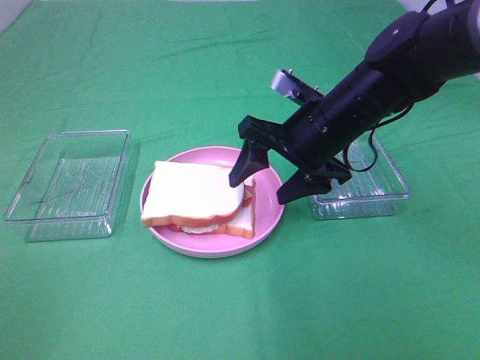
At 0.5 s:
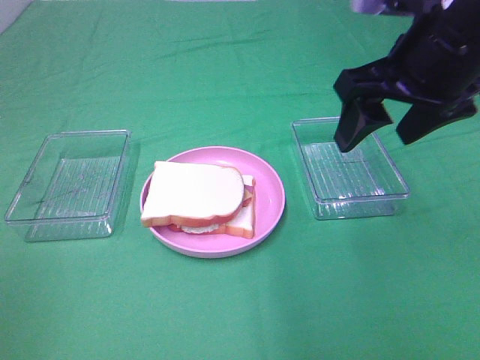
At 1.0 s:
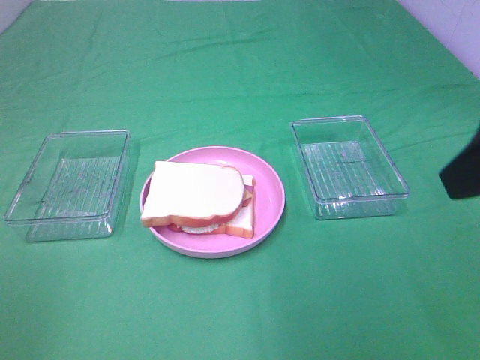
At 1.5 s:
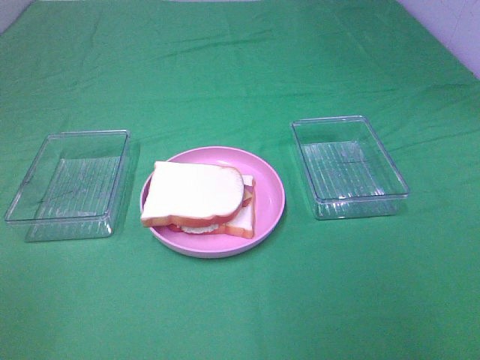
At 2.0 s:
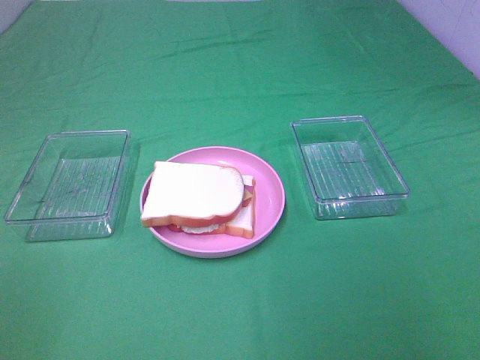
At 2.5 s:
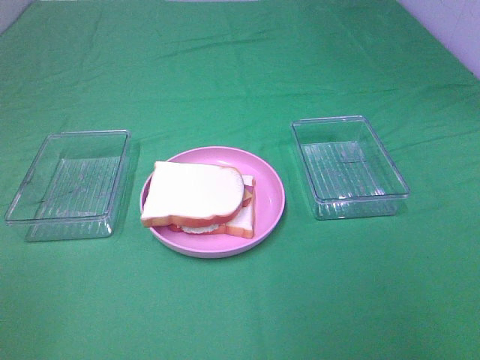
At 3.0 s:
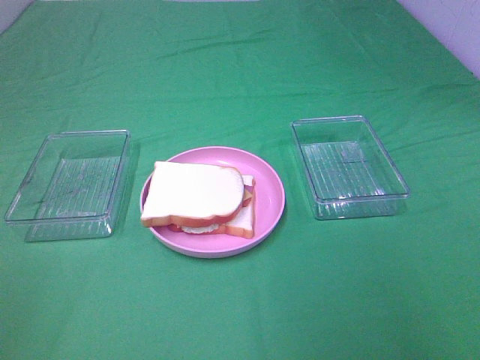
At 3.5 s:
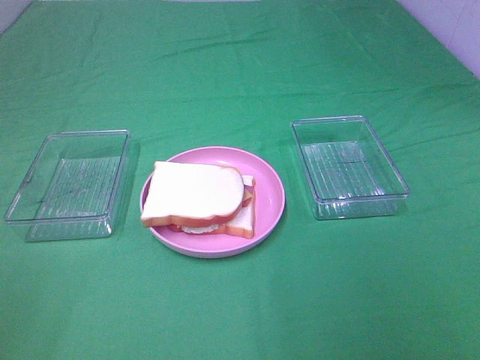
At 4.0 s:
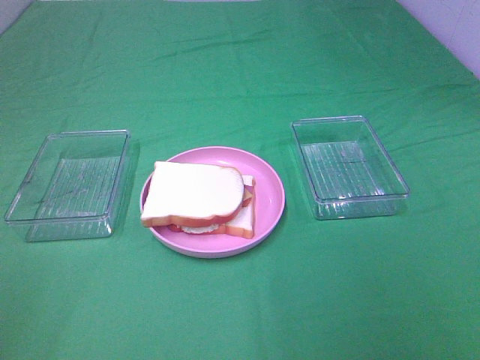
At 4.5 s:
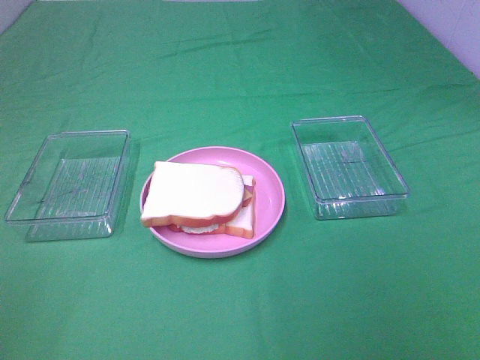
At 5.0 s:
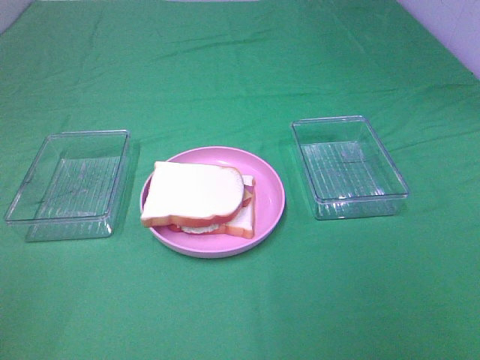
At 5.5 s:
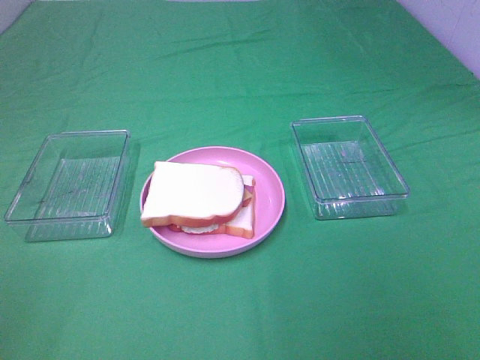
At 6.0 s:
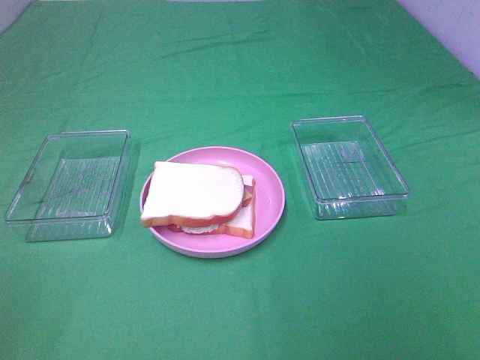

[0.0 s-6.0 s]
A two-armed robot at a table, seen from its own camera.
Task of the whole recording: Make sandwiches.
0.0 to 2.0 s: The right gripper travels backward and to the right by roughly 35 cm.
4.0 to 6.0 s: Both grippers stay about where they are.

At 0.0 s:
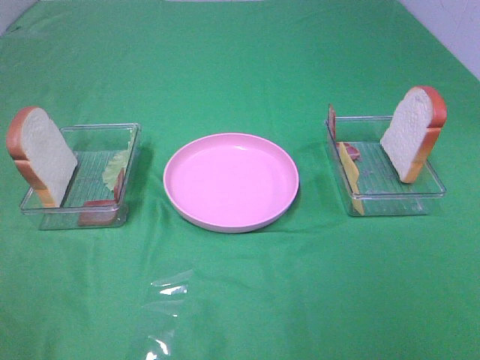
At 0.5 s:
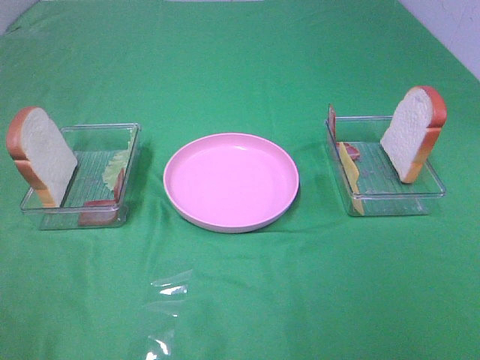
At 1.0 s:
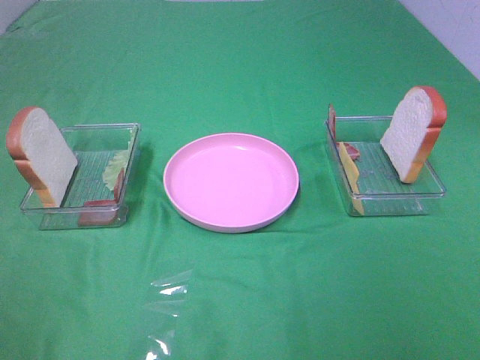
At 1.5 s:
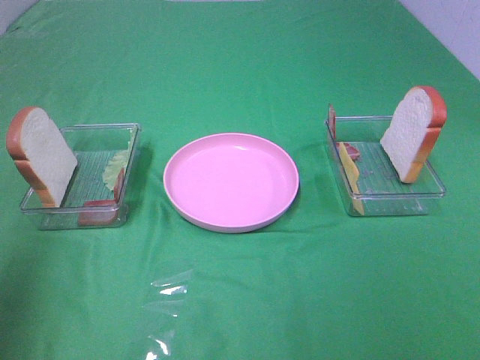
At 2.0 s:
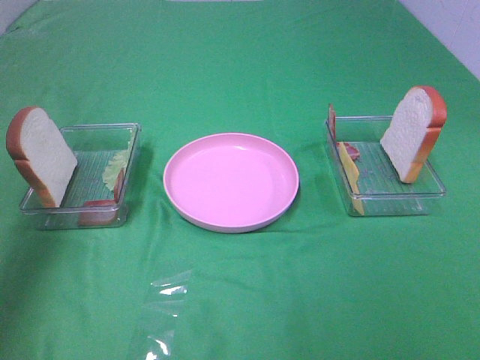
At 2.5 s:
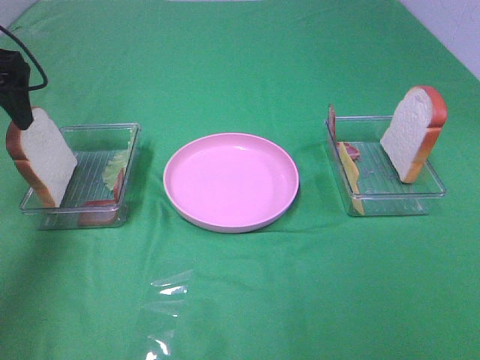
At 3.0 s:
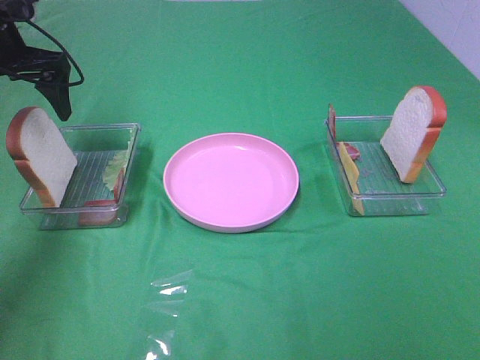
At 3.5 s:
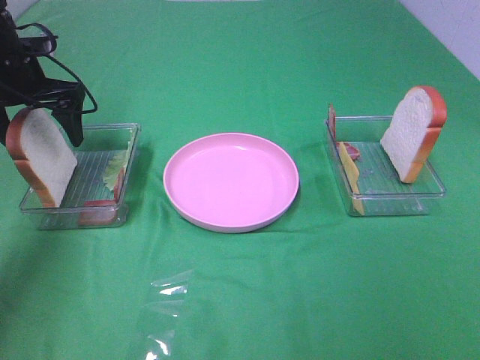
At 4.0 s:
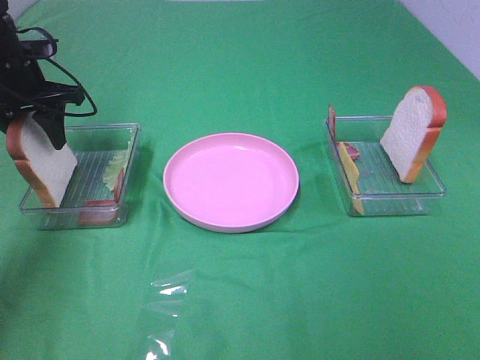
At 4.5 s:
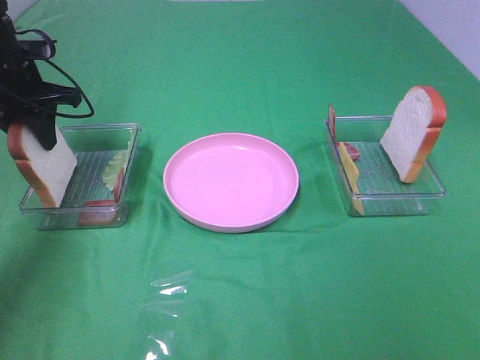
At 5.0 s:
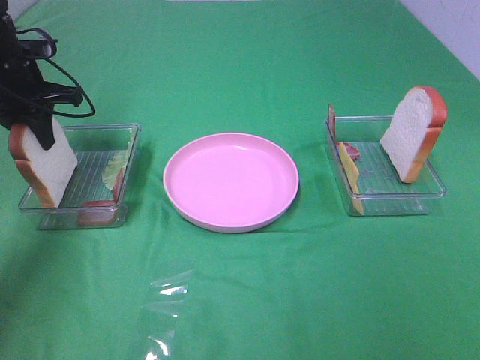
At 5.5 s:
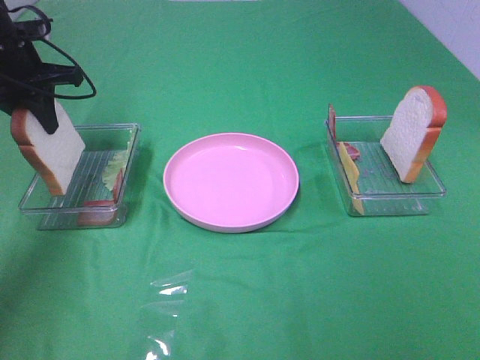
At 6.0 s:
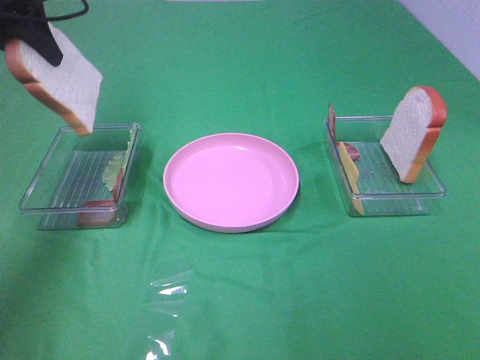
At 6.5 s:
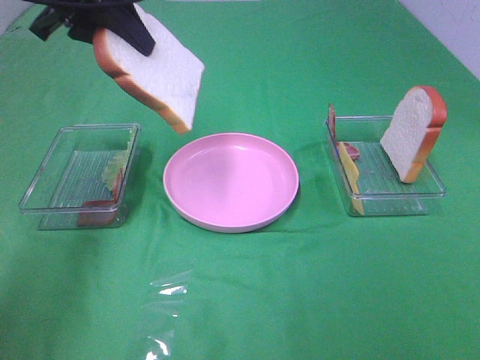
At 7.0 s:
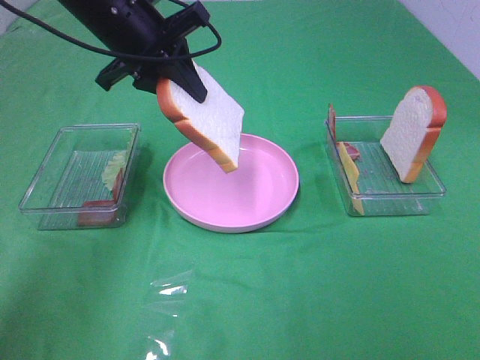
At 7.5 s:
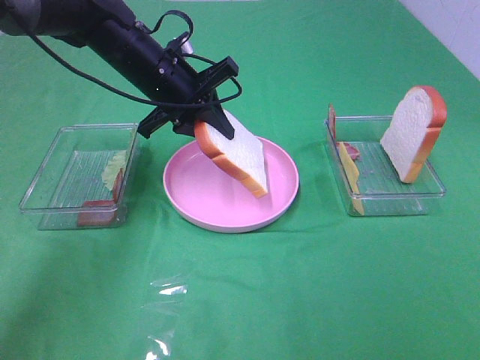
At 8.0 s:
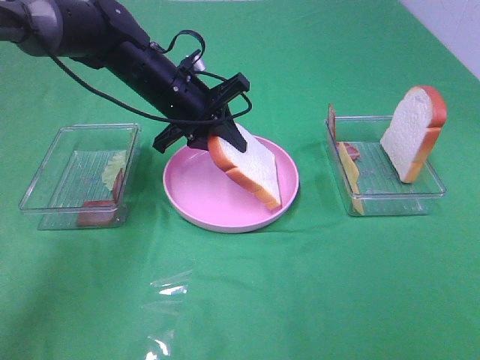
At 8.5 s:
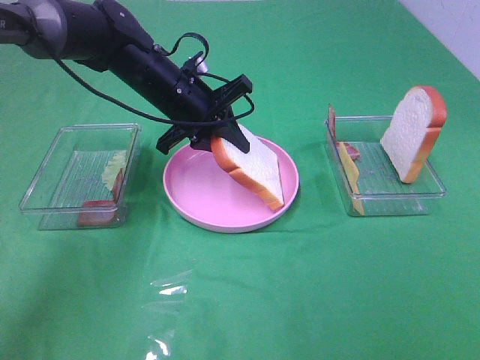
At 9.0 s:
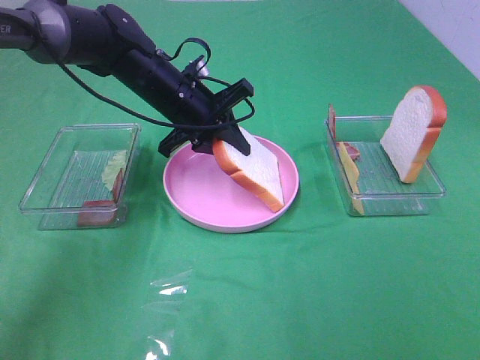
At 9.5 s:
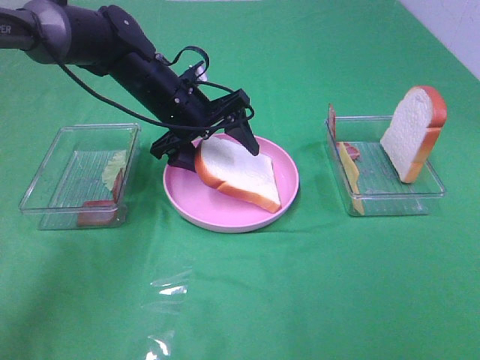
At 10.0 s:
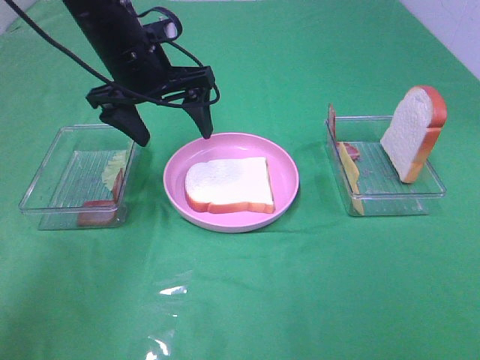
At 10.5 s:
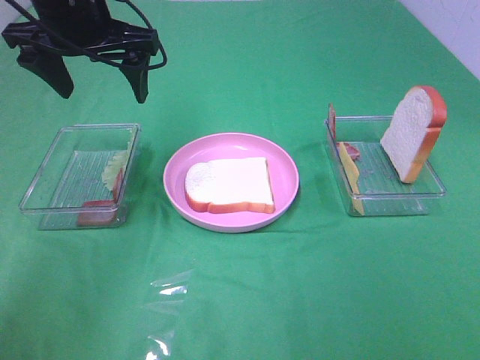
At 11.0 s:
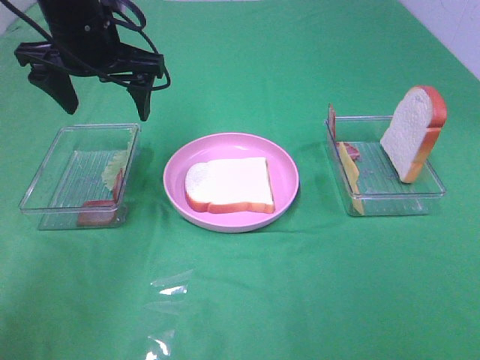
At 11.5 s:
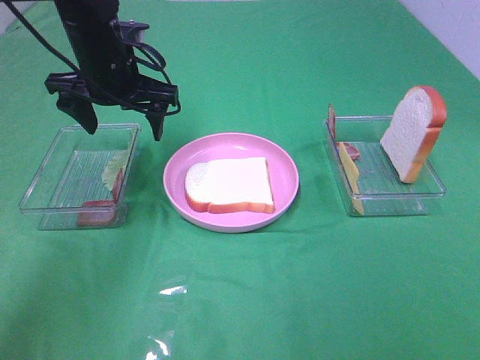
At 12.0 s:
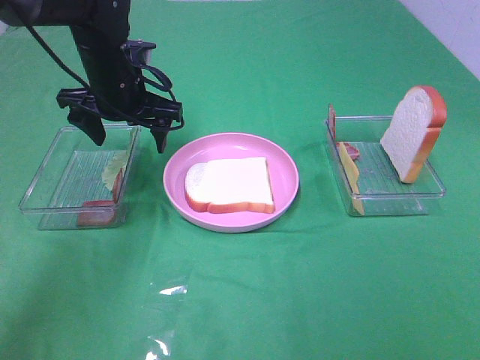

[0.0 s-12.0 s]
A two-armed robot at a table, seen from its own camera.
Task of the whole recording: Make sandwiches.
Step, 0.0 to 5.0 s: Left hand:grab the bread slice.
Step, 5.5 to 9.5 s: Left hand:place the bread slice on the plate.
0.0 to 2.0 s: The left gripper moves forward, roughly 30 cm.
2.0 to 4.0 s: The left gripper goes roughly 20 cm forward and downward, and closes.
4.0 to 6.0 s: The left gripper shifts some 10 cm upward.
6.0 to 8.0 s: The left gripper travels to the right and downward by approximately 25 cm.
8.0 to 10.0 s: The left gripper moves upward, about 5 cm, and opens its fingers.
10.0 to 12.0 s: The left gripper is displaced downward by about 5 cm.

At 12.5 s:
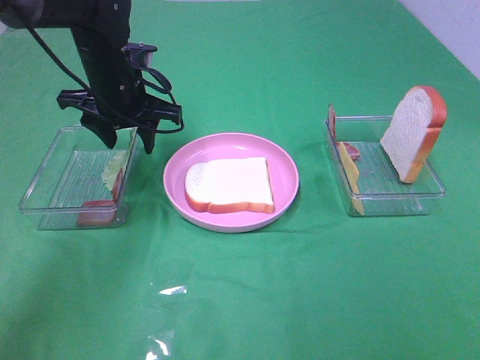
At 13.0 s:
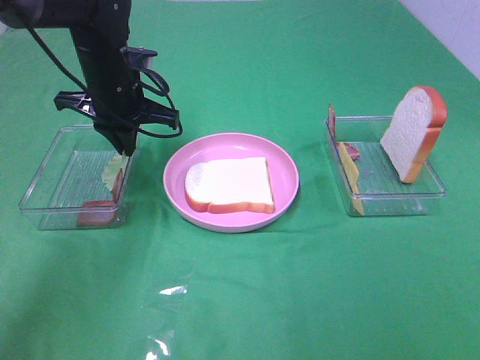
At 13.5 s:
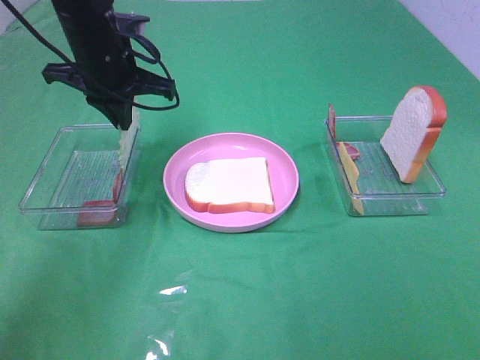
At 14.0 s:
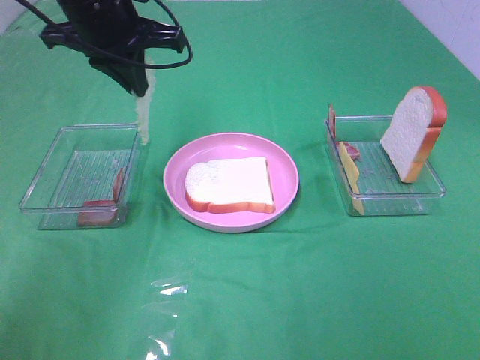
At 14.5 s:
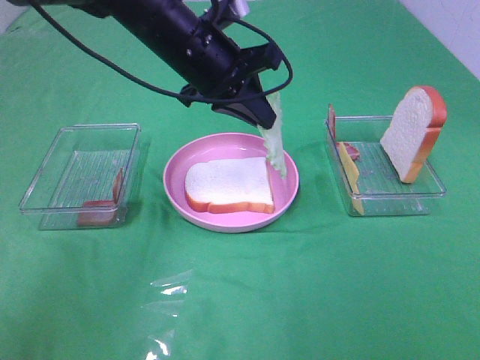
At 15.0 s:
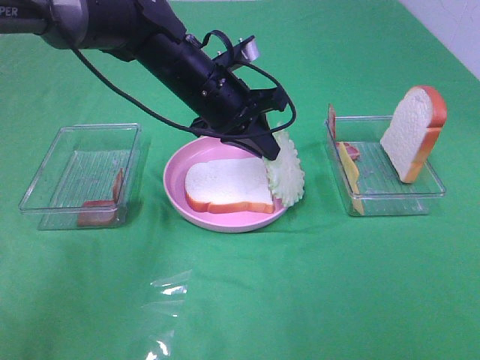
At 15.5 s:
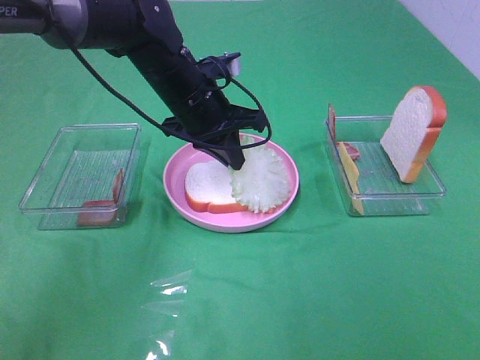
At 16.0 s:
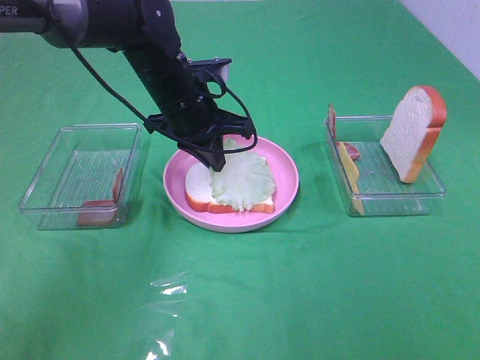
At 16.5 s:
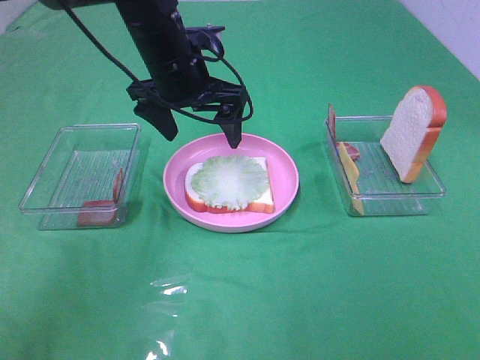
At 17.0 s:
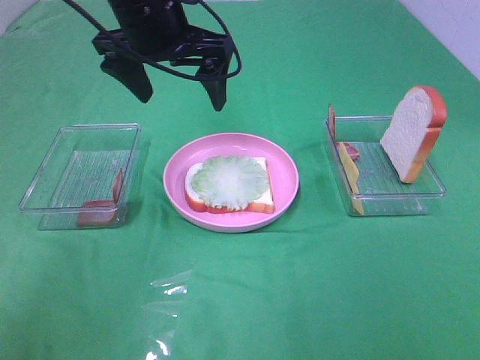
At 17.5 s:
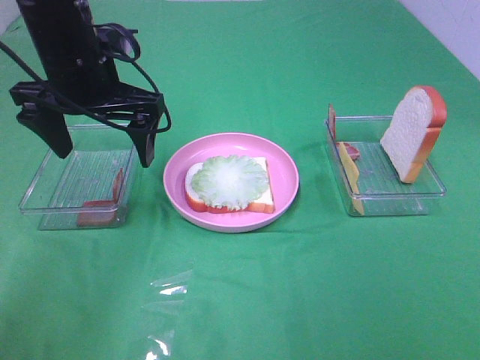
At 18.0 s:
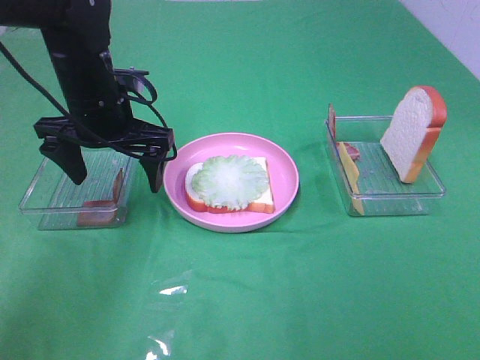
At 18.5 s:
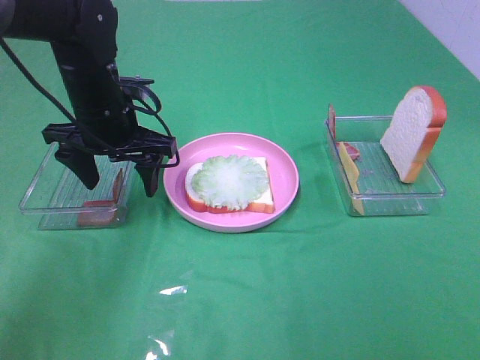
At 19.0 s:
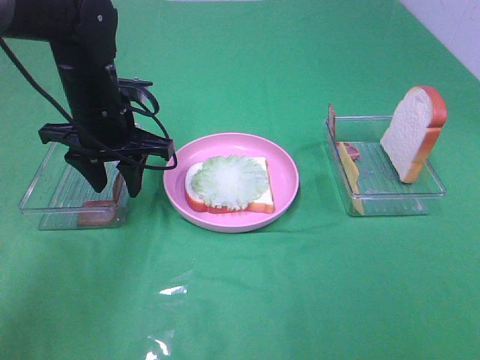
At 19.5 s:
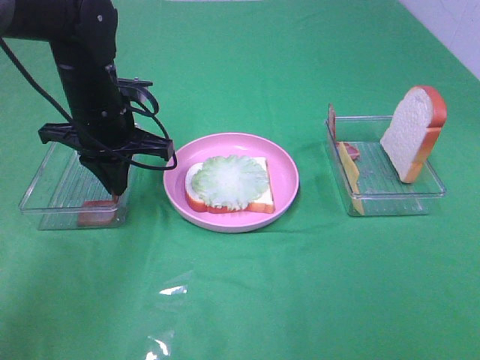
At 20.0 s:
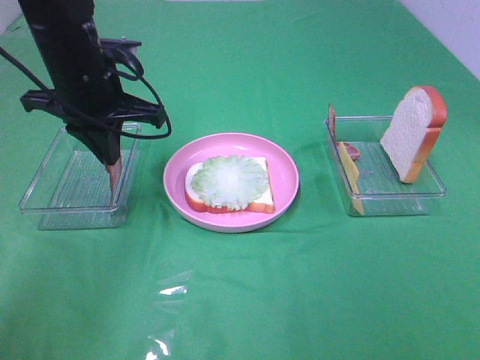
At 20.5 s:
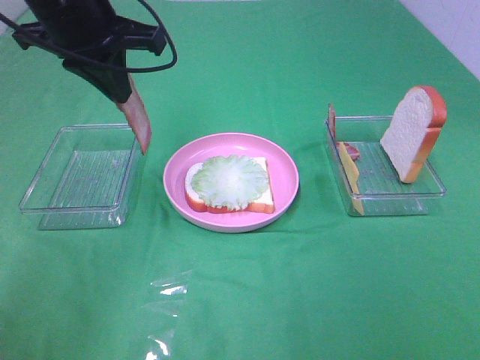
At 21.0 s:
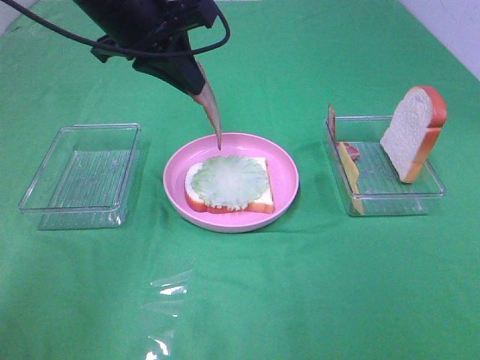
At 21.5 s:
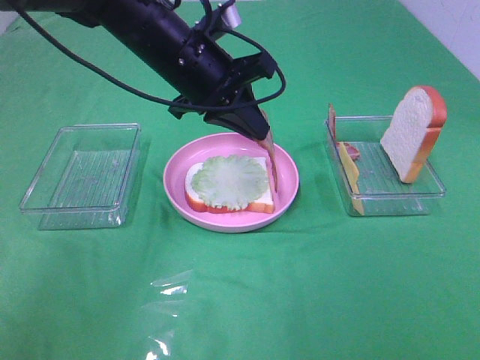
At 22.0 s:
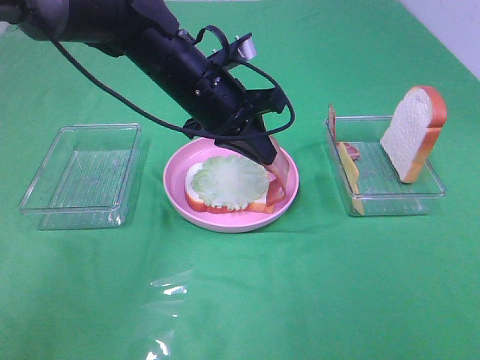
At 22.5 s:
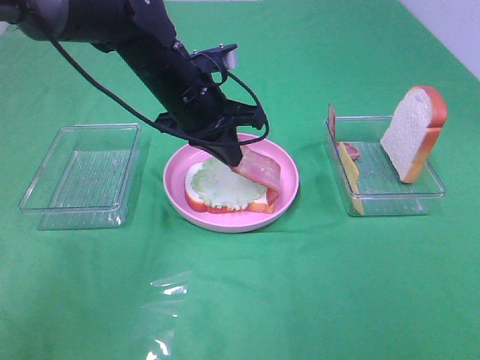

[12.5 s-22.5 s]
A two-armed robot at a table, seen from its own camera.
Task of the whole recording: Make sandwiches.
Step, 13.5 to 16.0 s: Left hand:place the lettuce slice on the bread slice.
Step, 16.5 to 19.5 s: Left hand:grab the bacon.
12.5 to 14.5 s: The left gripper shifts some 10 cm to the right, and closes up.
14.5 to 16.5 s: The left gripper opens up.
16.5 to 18.5 s: The left gripper travels to the left by approximately 10 cm.
18.5 to 20.5 s: The left gripper shifts some 15 cm upward, and closes its fingers.
20.5 to 22.5 s: The left gripper is displaced downward and to the right by roughly 15 cm.
